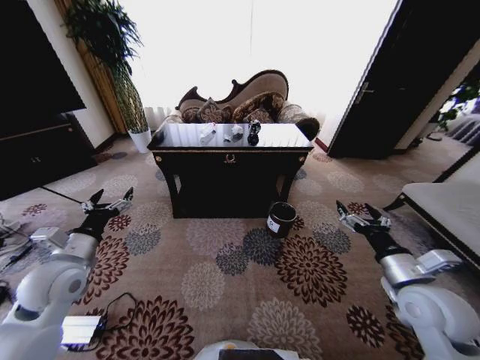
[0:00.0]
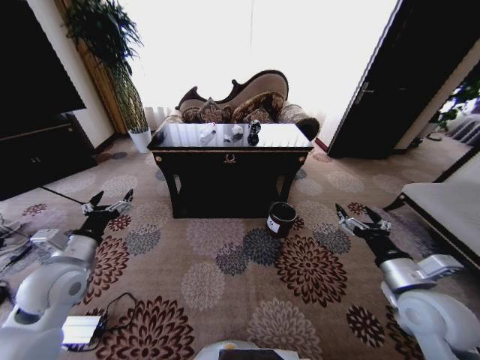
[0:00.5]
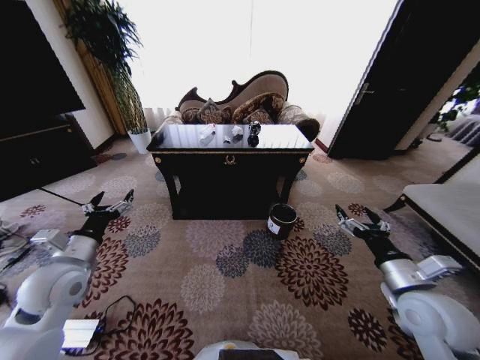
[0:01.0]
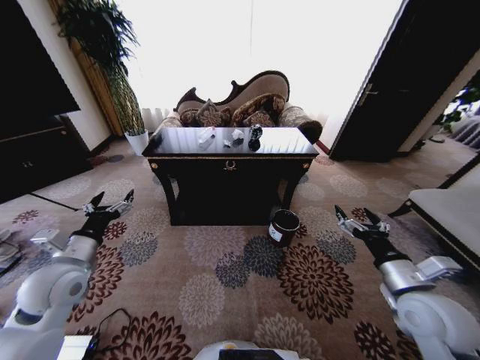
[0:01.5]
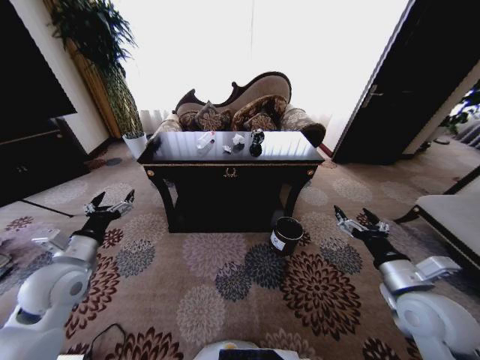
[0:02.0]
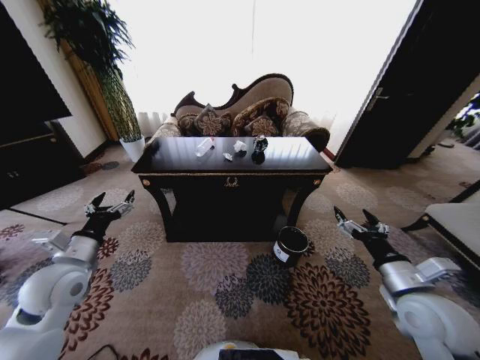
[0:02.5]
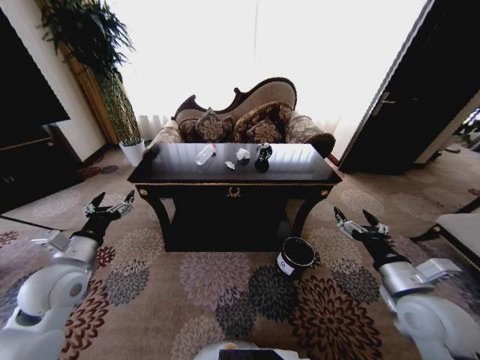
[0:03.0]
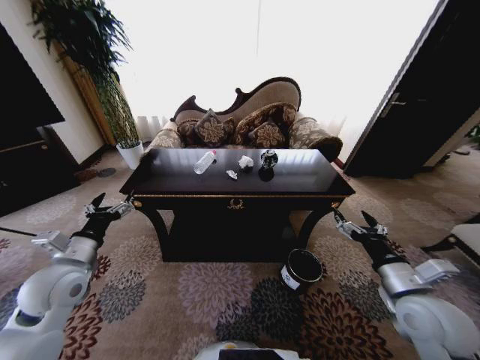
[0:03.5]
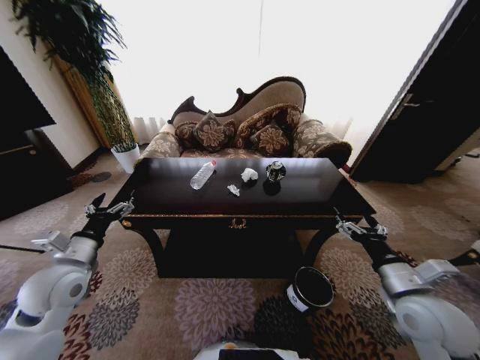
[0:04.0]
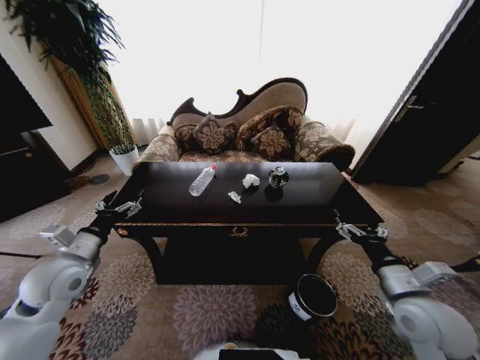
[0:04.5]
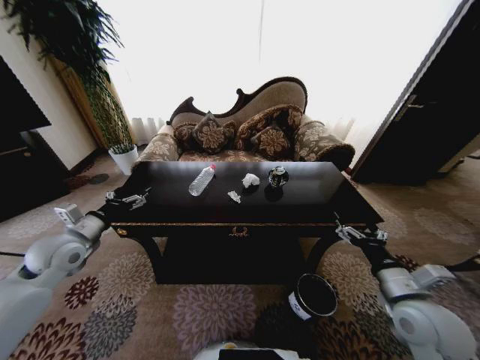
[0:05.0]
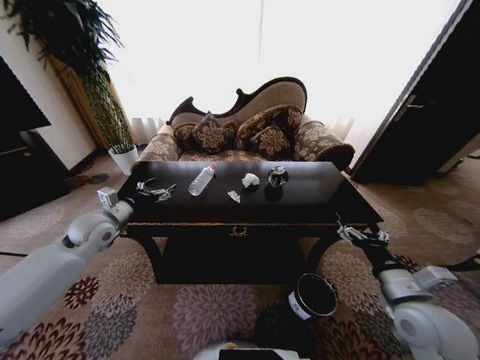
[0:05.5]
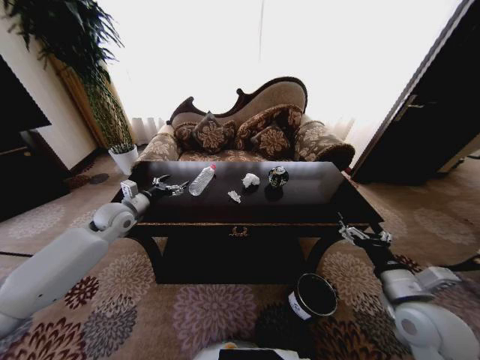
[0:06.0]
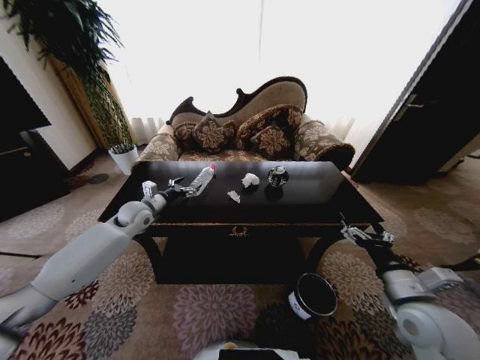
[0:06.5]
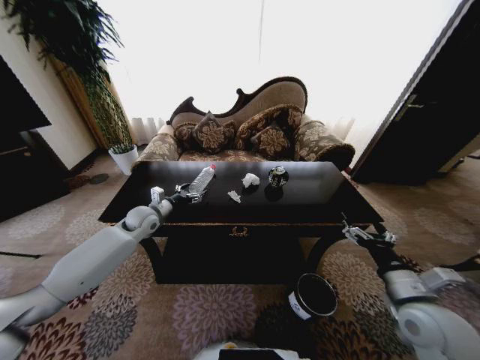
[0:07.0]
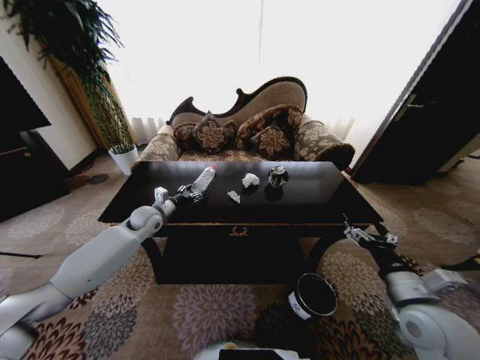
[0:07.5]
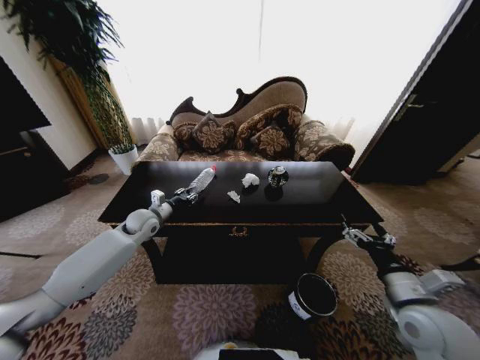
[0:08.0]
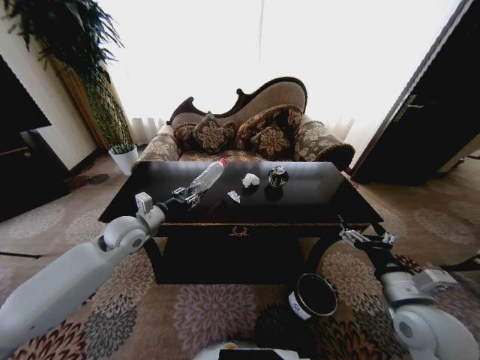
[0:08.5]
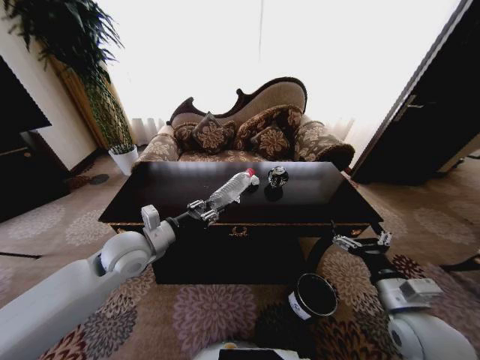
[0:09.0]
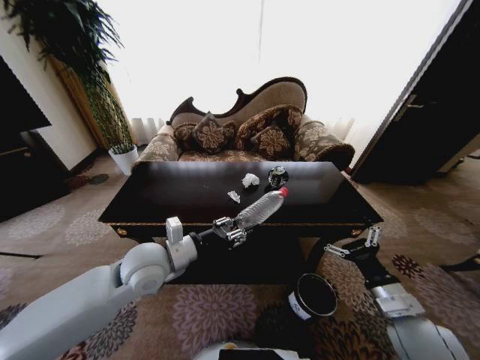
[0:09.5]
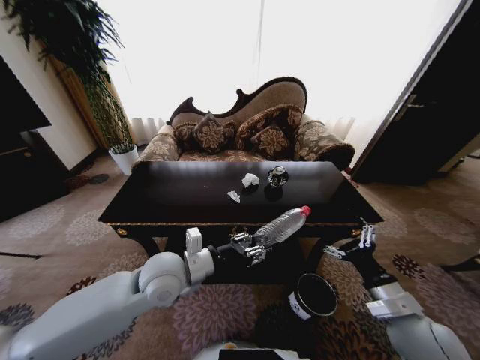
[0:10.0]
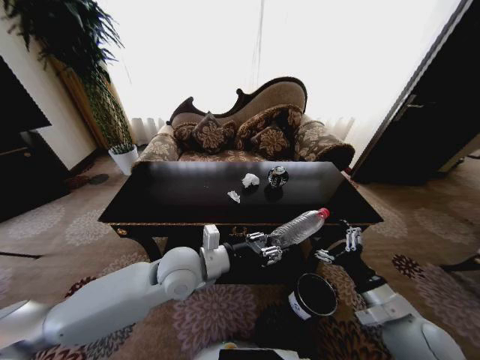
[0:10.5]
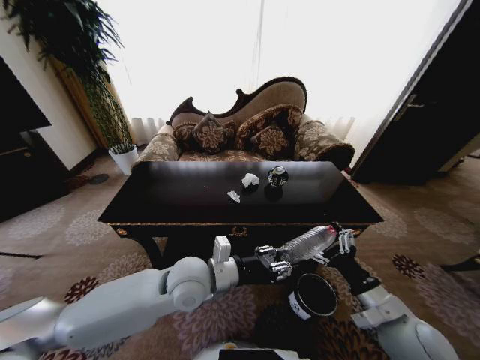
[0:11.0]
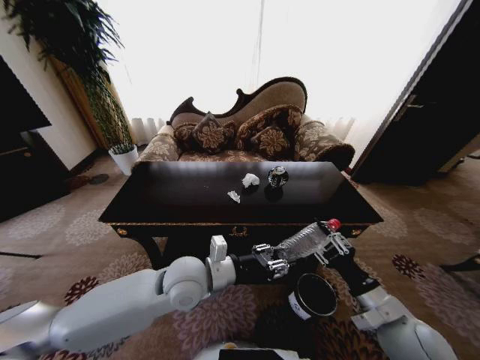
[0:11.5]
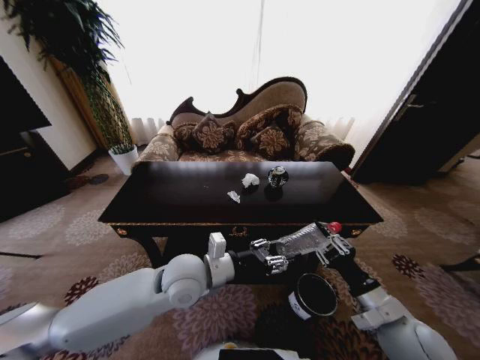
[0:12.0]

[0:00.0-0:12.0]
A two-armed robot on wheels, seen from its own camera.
Task of the whole recording: Move to the front of the table and place the trash on the table into the trash bin.
0:04.0 to 0:06.0: The left gripper moves forward, about 20 cm.
0:06.0 to 0:08.0: The left gripper moves downward and to the right, some 10 cm, and closes up.
0:08.0 to 0:10.0: The left gripper is displaced backward and to the right by roughly 25 cm.
0:10.0 to 0:12.0: The right gripper closes up.

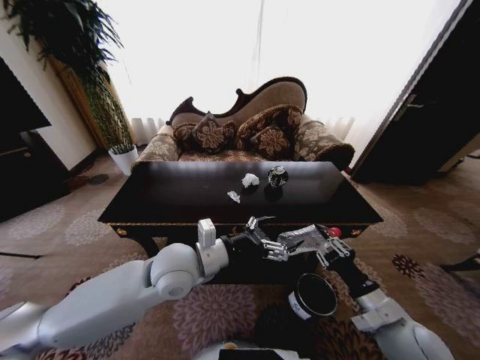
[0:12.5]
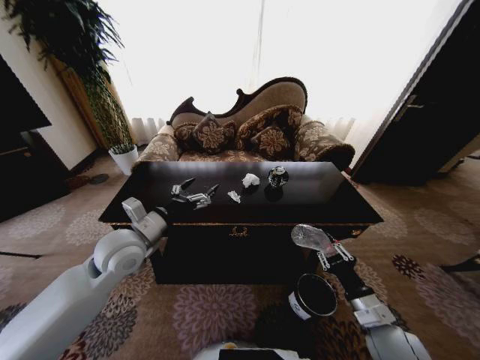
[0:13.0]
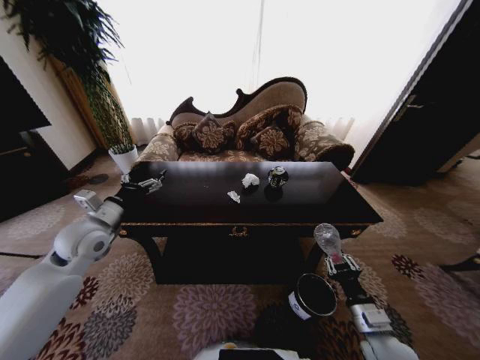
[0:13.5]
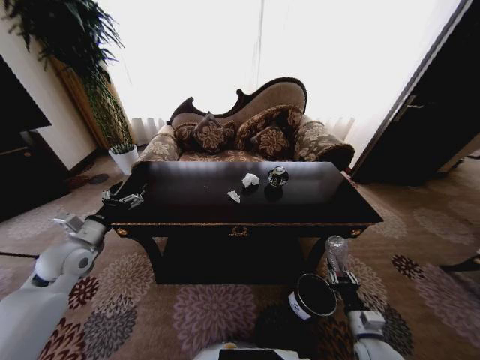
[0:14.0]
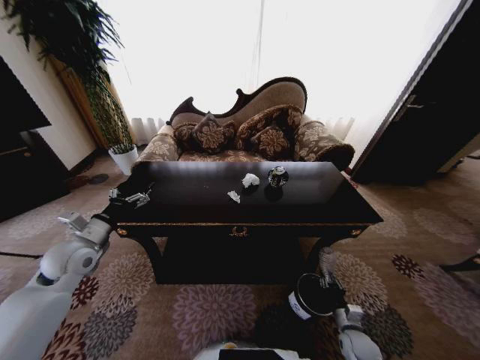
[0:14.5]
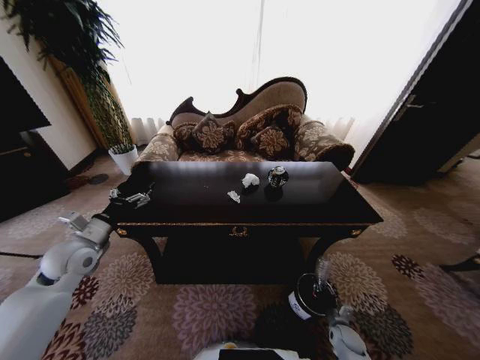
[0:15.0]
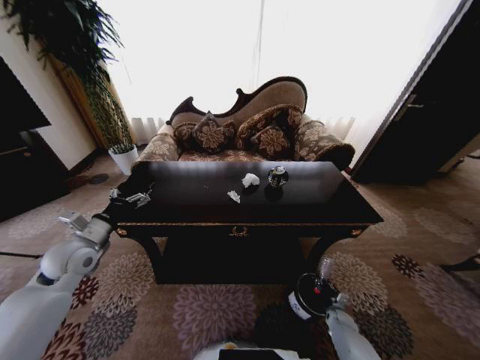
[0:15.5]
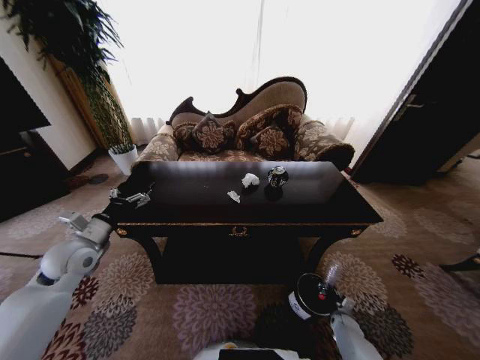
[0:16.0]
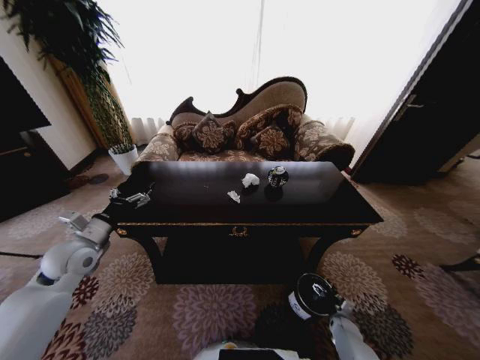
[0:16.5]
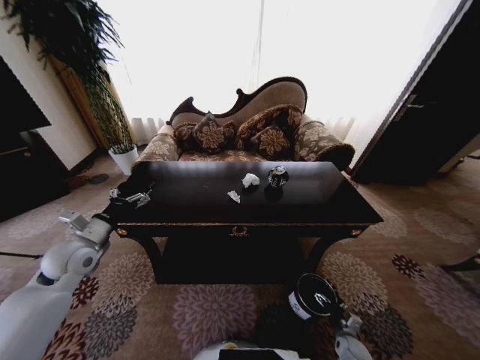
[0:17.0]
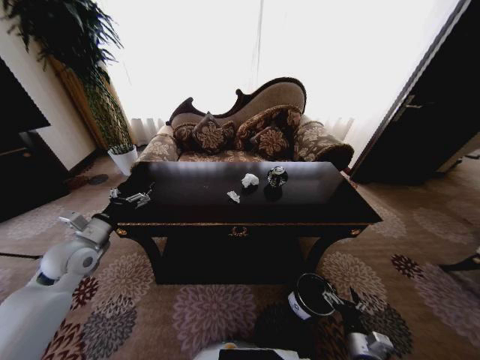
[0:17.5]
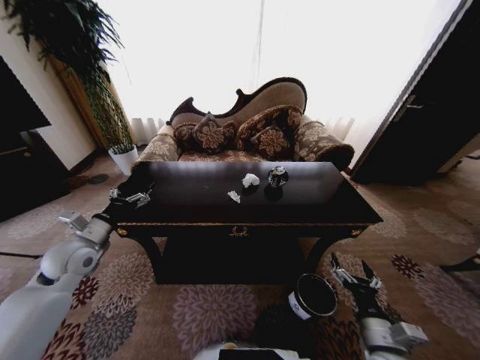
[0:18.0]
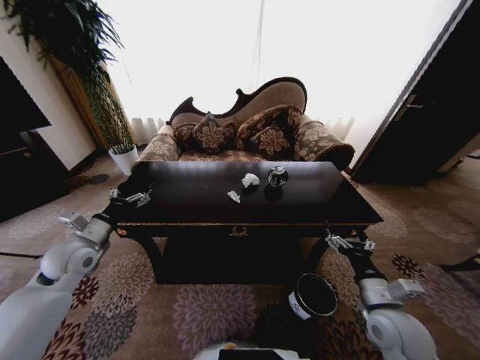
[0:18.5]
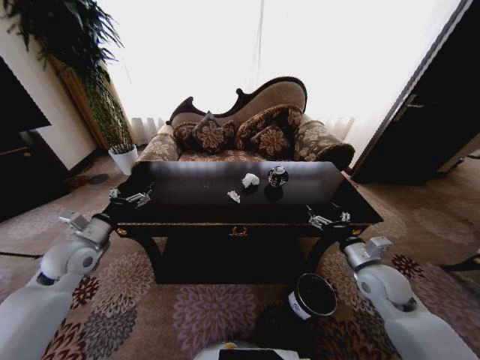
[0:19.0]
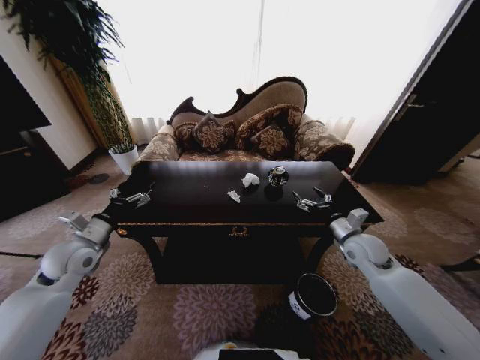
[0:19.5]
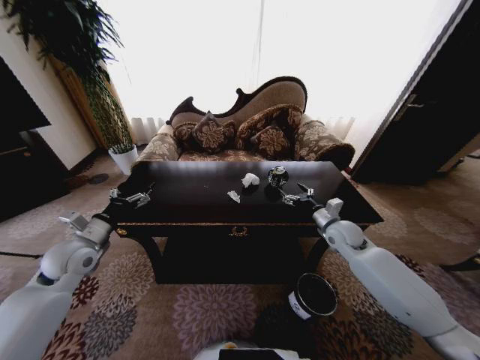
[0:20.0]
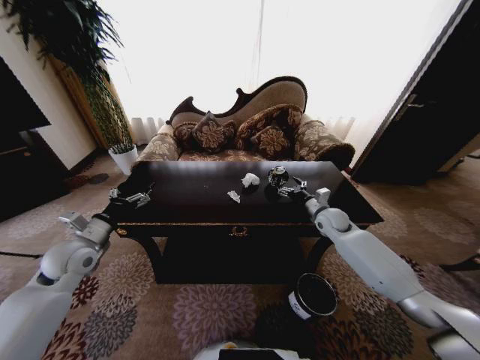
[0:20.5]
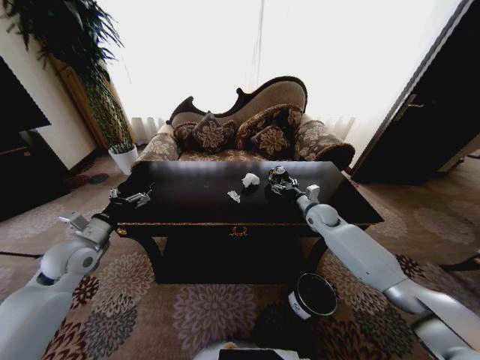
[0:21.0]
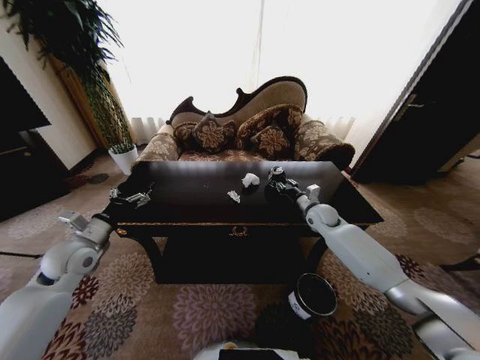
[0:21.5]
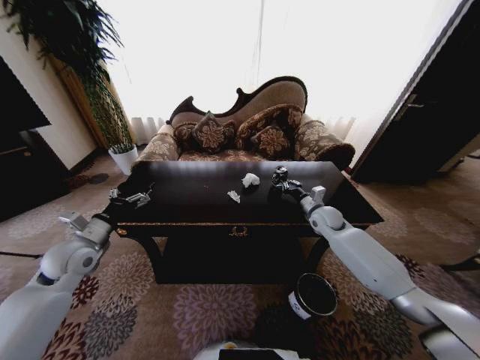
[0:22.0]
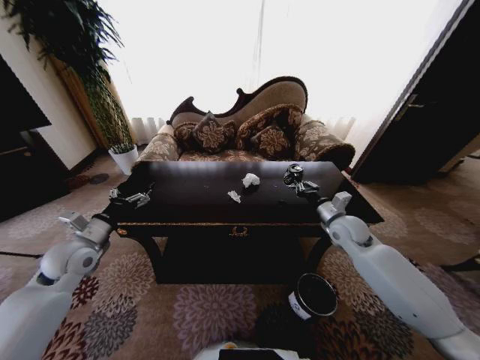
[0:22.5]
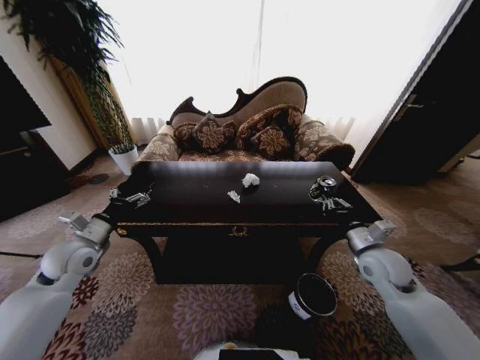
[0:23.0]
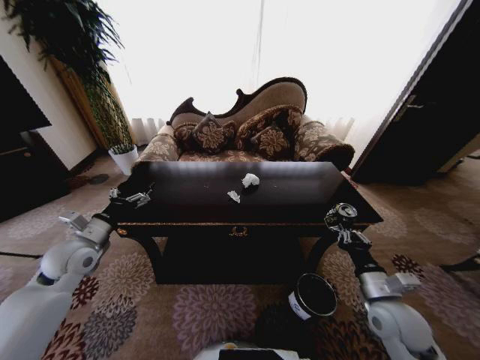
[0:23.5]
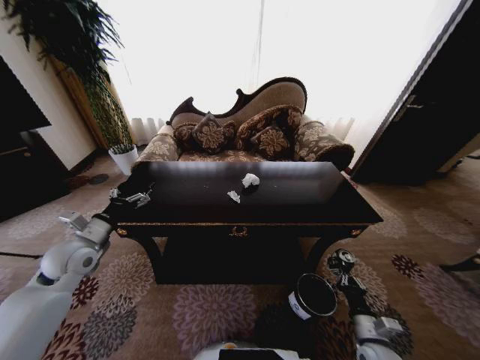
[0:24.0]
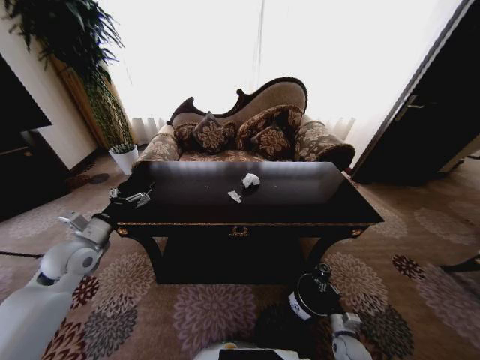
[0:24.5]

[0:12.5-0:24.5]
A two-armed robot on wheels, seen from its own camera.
Task of the whole recording: Move to the front of the table and place the trash on the table into the trash bin.
0:12.5 to 0:14.5: The left gripper heads to the left, covering some 30 cm, while the right gripper moves downward, approximately 25 cm.
0:14.5 to 0:16.5: The right gripper travels downward, forward and to the right by roughly 15 cm, and opens.
0:16.5 to 0:18.5: The right gripper shifts roughly 35 cm upward.
0:18.5 to 0:20.5: The right gripper heads forward, covering some 30 cm.
0:20.5 to 0:22.5: The right gripper shifts about 5 cm backward, and closes.
0:22.5 to 0:24.5: The right gripper shifts about 40 cm downward and backward.

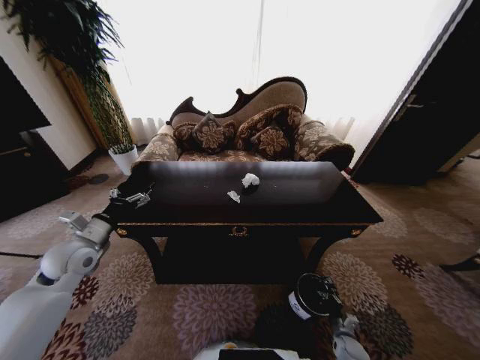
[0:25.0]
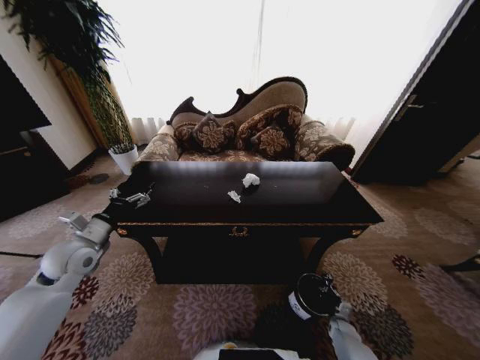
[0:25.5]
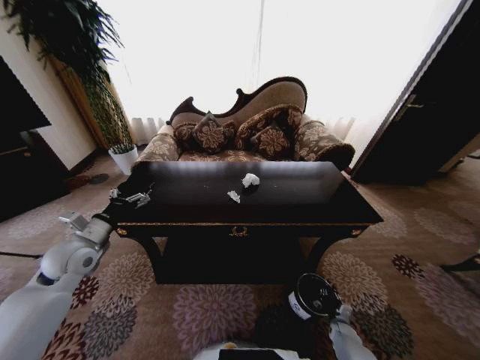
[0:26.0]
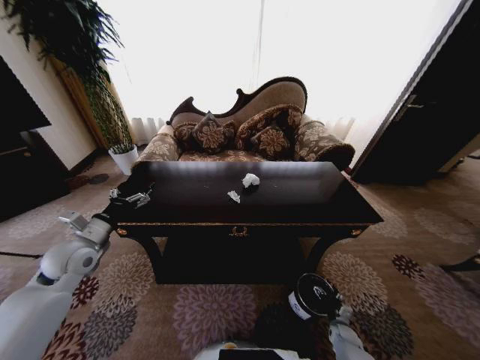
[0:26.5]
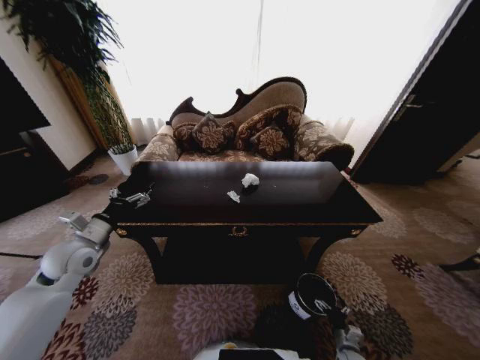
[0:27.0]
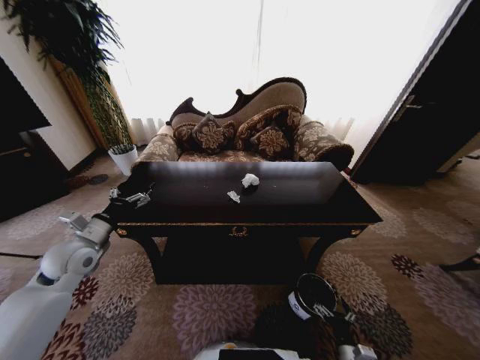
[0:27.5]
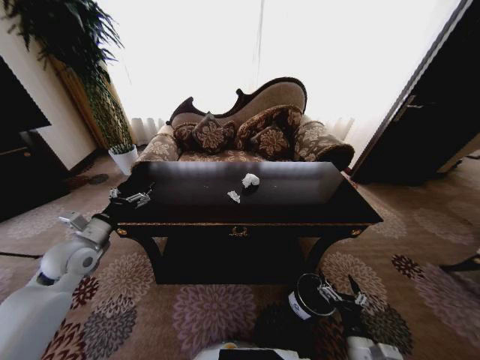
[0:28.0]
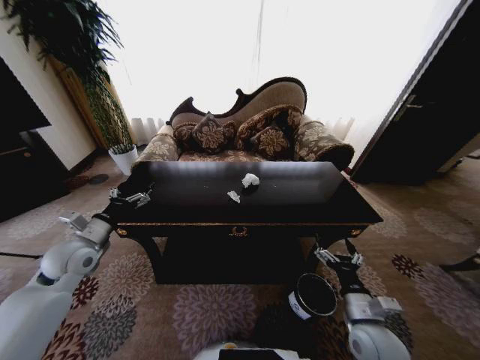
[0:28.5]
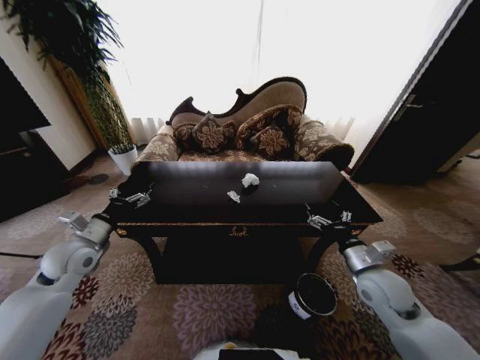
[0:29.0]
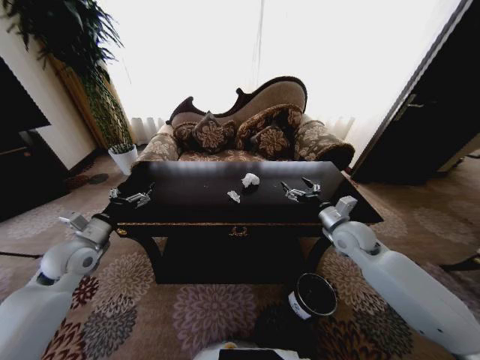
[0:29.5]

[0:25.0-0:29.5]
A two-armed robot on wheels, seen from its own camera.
Task of the whole recording: Move to the front of the table and place the trash on the table into the trash bin.
0:25.0 to 0:27.0: The right gripper opens up.
0:27.0 to 0:29.5: The right gripper moves upward and forward, about 50 cm.
